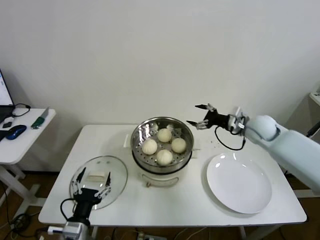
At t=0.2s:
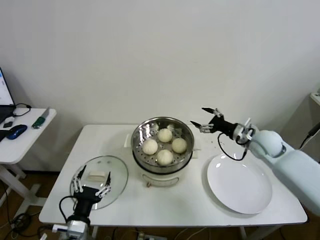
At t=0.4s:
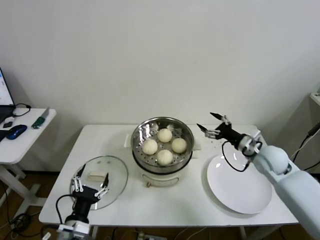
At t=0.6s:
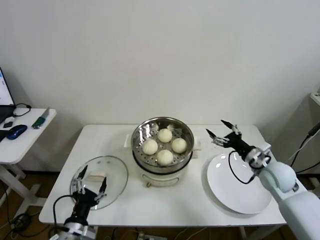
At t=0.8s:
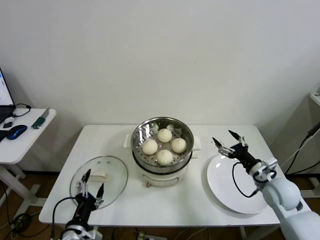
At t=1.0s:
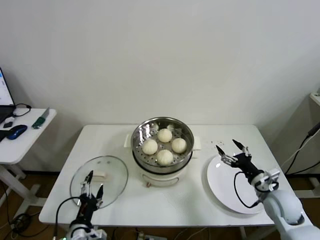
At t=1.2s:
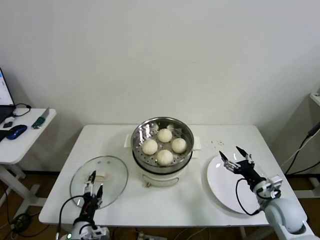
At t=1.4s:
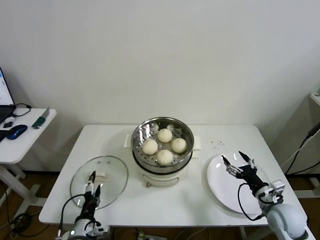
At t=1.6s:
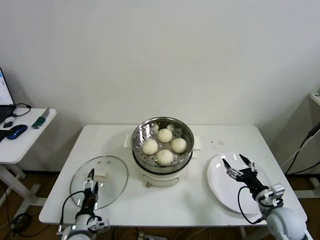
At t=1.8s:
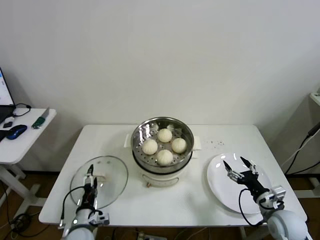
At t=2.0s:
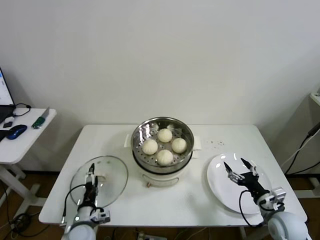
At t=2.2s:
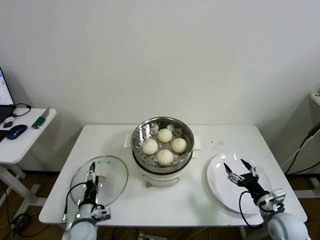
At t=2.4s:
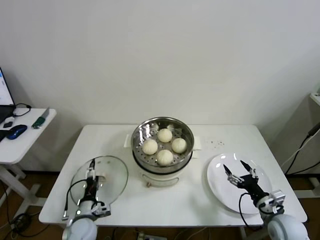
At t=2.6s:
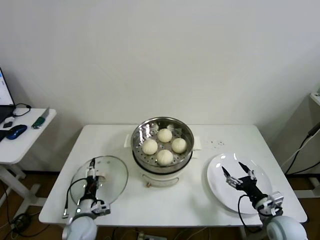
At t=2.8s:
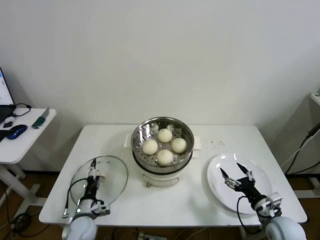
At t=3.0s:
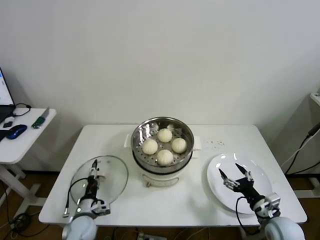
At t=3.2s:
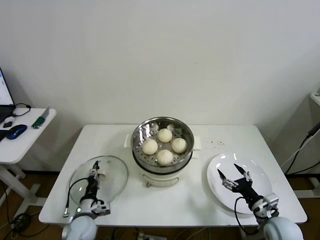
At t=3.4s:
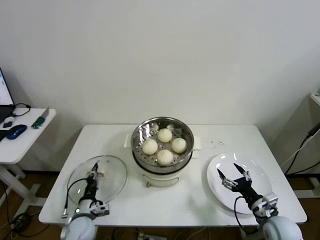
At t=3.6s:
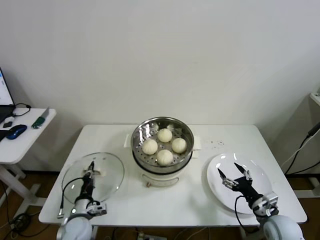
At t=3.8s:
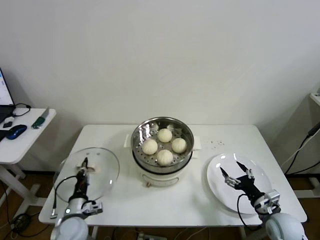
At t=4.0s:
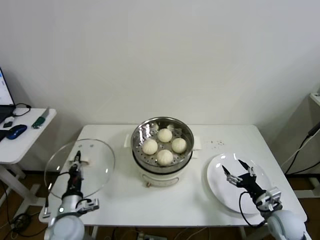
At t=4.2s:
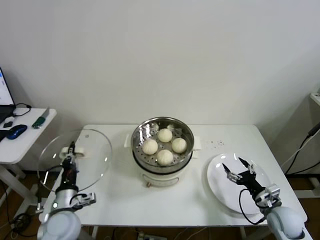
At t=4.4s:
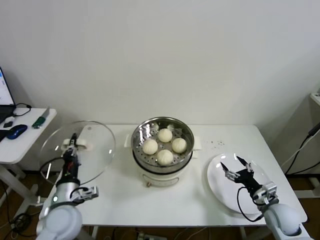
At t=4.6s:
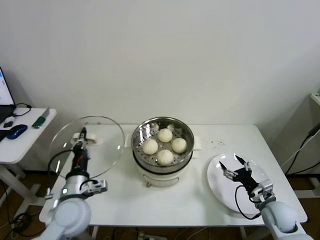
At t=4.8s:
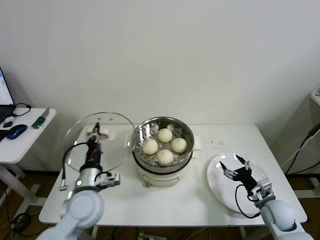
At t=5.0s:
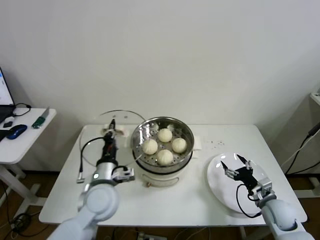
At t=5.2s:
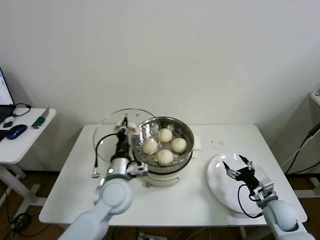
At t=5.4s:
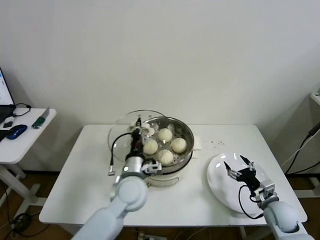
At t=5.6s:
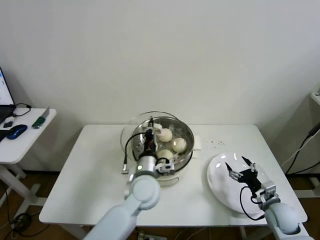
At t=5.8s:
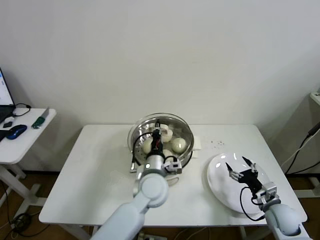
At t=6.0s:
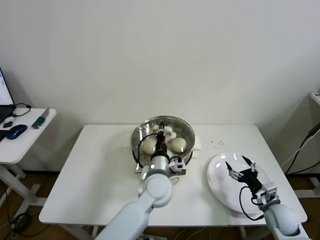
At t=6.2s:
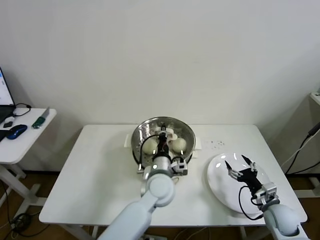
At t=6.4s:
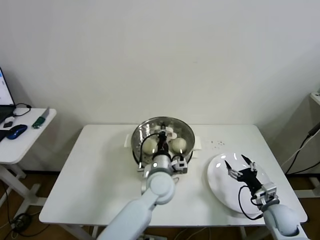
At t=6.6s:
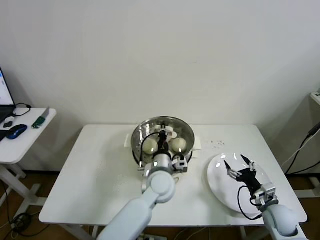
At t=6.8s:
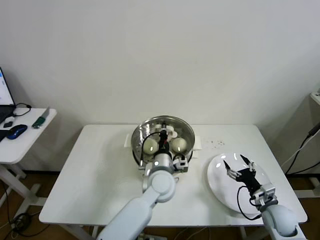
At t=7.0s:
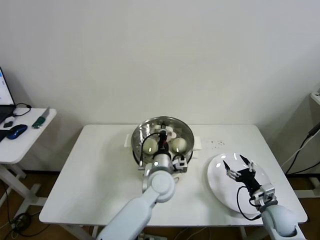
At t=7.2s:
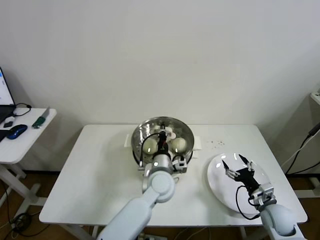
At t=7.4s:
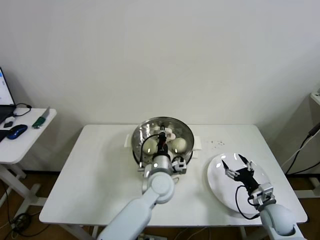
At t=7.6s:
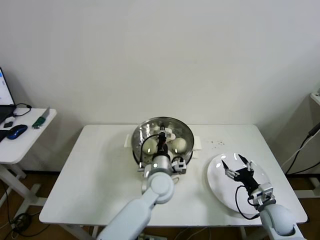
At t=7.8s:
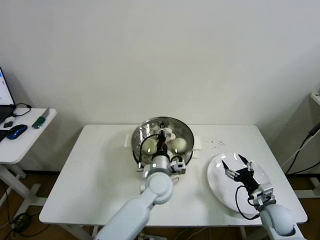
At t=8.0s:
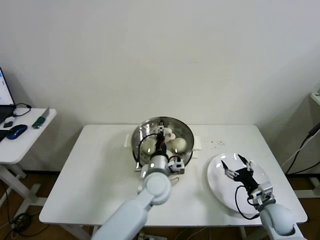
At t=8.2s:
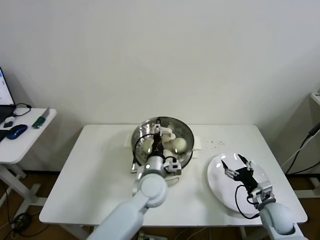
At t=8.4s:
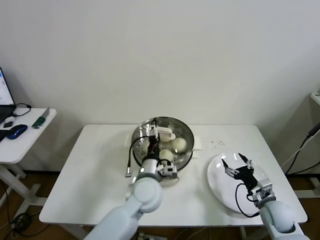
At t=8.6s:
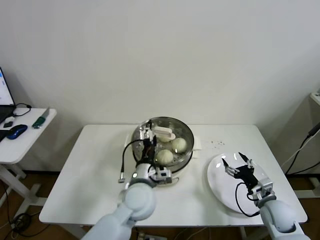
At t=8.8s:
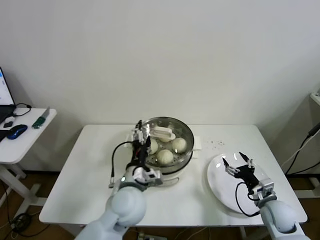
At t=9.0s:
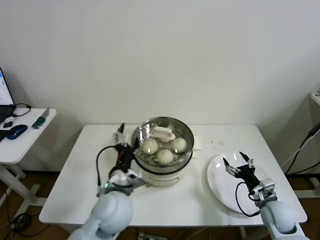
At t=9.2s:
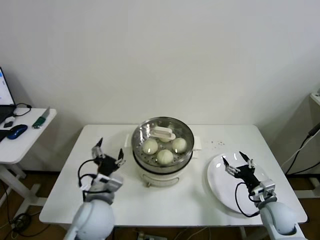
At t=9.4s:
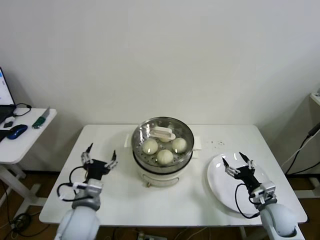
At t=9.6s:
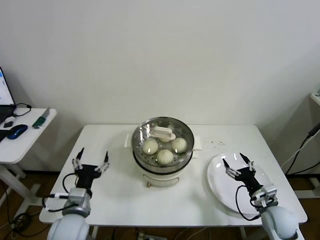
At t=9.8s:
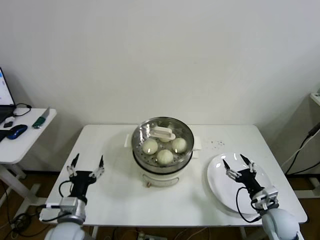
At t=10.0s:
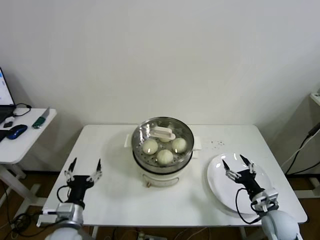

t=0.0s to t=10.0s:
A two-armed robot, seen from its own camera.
Step, t=0.0s to t=3.4s: Grasp the pot lid with left gripper.
Step, t=3.6s to t=7.8s: Place the pot lid on the steamer with left gripper.
t=0.0s to t=1.4s: The right gripper moves backward and downward, some 30 cm. The left gripper goes approximately 10 cm downward.
t=1.4s to t=2.8s: The left gripper travels forward by some 10 cm.
t=2.8s to t=4.2s: The left gripper heads upward, covering about 10 cm, and closes.
t=4.2s to t=5.8s: The left gripper is displaced to the right by approximately 25 cm.
t=5.8s to t=7.2s: The grippers move only a little.
t=7.2s to t=8.6s: The left gripper heads to the left and backward, covering roughly 10 cm, and opens its fingers.
t=8.6s to t=10.0s: The left gripper goes about 25 cm to the left and backward.

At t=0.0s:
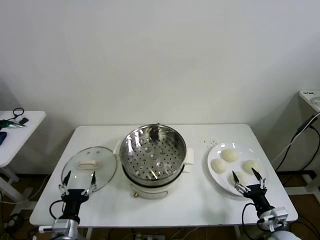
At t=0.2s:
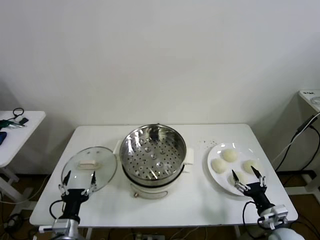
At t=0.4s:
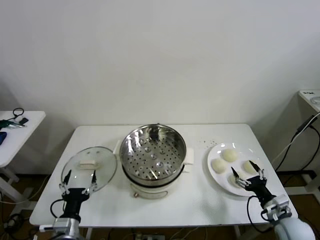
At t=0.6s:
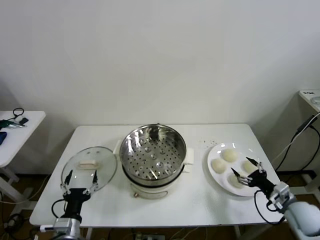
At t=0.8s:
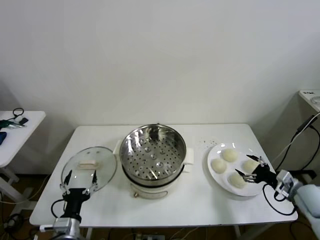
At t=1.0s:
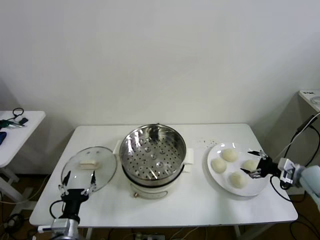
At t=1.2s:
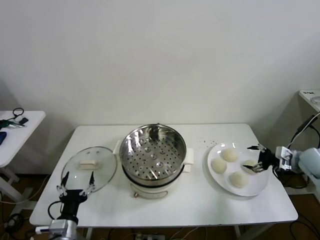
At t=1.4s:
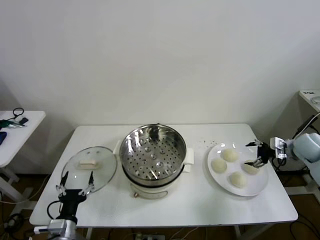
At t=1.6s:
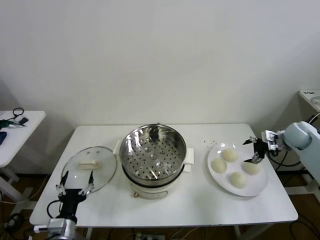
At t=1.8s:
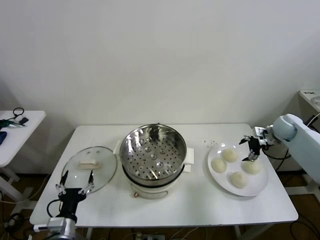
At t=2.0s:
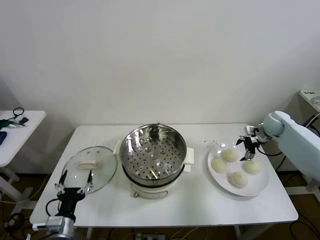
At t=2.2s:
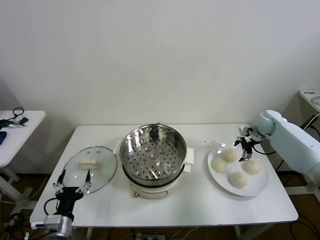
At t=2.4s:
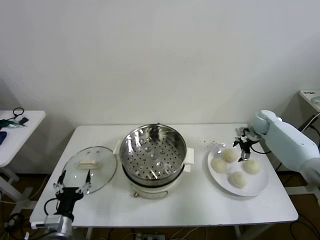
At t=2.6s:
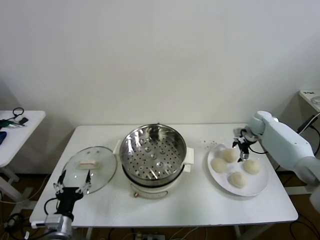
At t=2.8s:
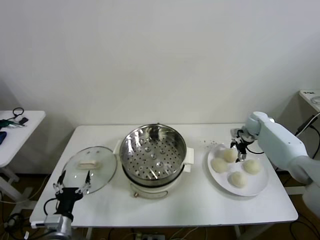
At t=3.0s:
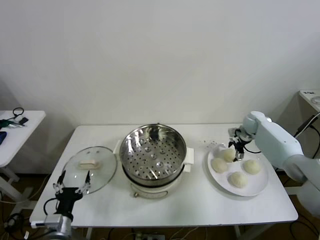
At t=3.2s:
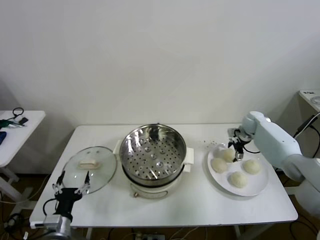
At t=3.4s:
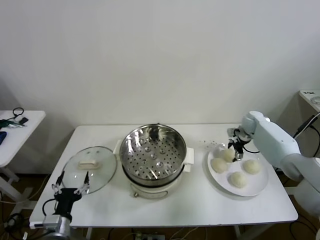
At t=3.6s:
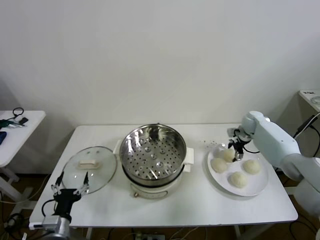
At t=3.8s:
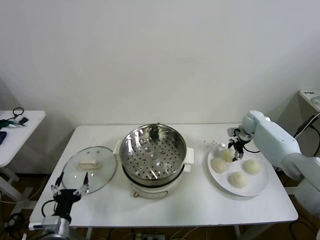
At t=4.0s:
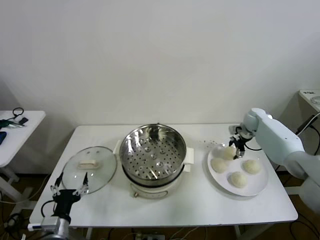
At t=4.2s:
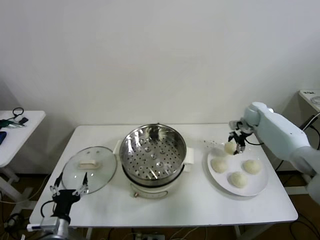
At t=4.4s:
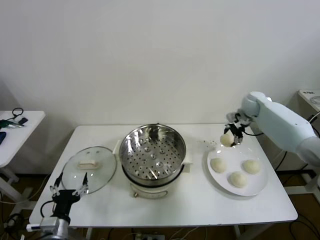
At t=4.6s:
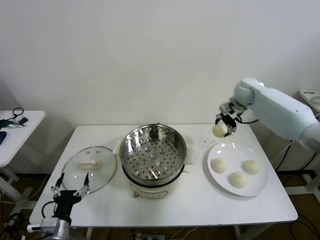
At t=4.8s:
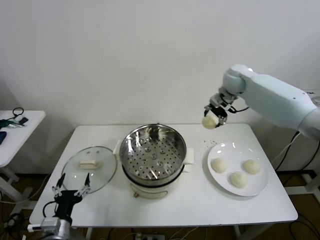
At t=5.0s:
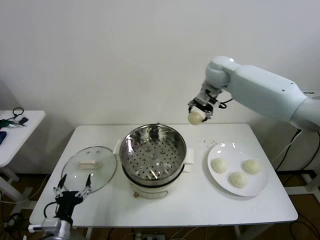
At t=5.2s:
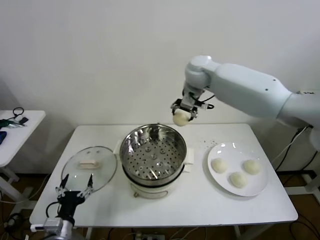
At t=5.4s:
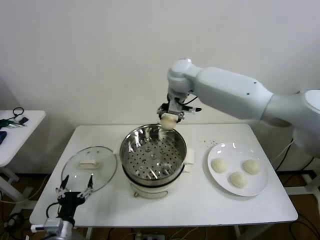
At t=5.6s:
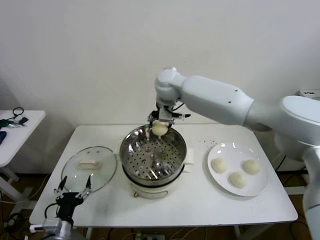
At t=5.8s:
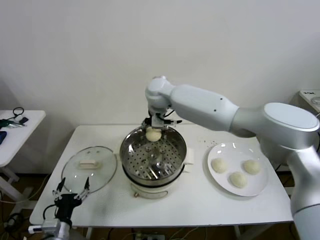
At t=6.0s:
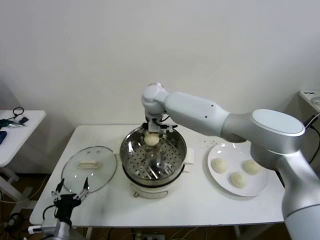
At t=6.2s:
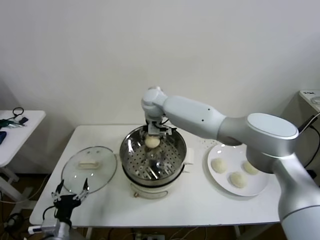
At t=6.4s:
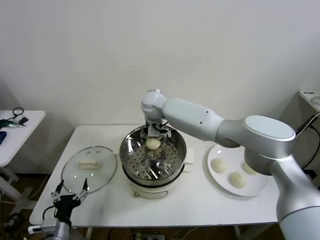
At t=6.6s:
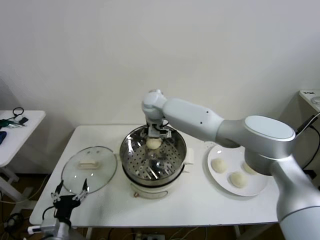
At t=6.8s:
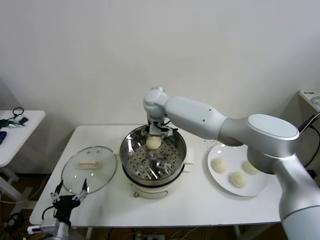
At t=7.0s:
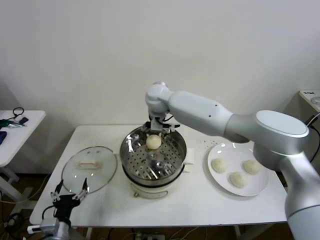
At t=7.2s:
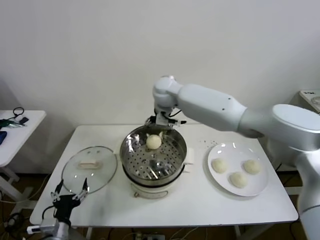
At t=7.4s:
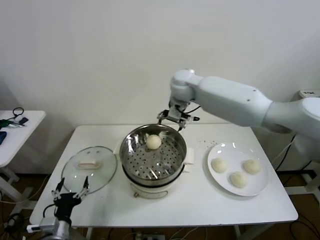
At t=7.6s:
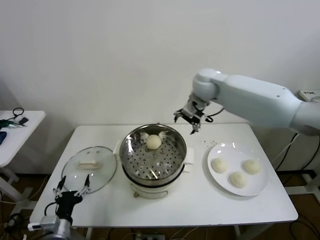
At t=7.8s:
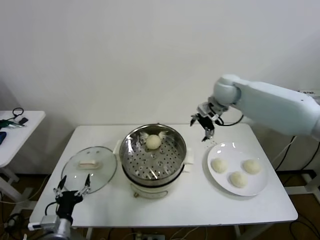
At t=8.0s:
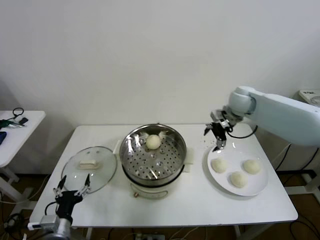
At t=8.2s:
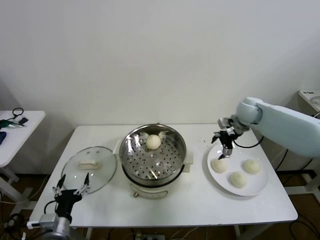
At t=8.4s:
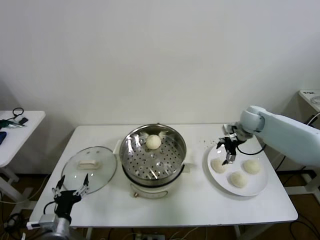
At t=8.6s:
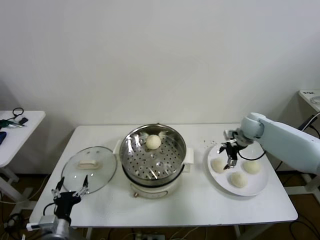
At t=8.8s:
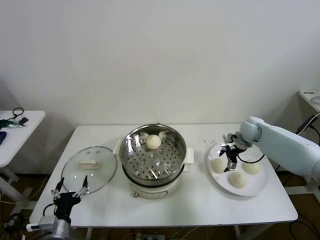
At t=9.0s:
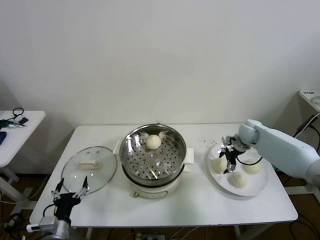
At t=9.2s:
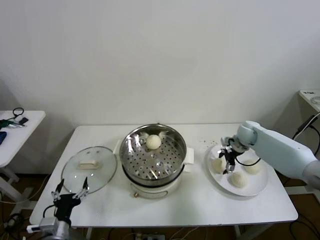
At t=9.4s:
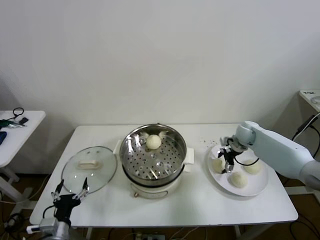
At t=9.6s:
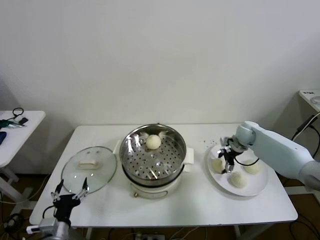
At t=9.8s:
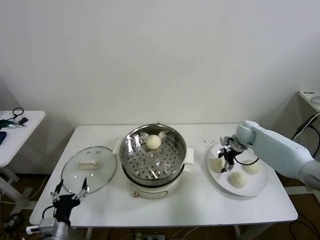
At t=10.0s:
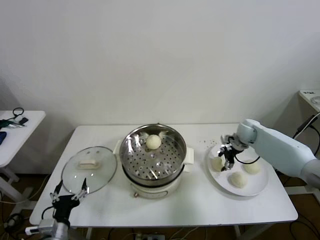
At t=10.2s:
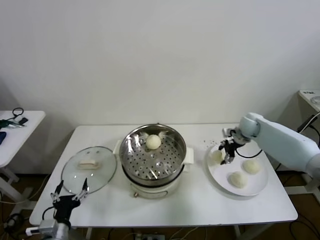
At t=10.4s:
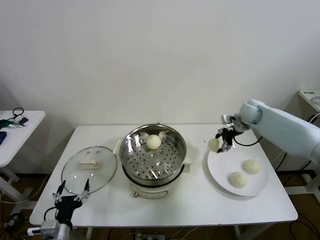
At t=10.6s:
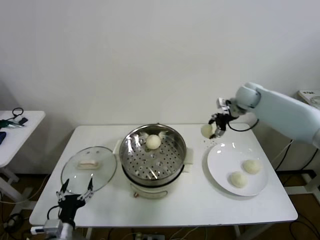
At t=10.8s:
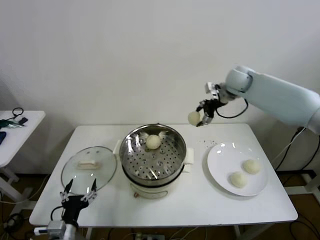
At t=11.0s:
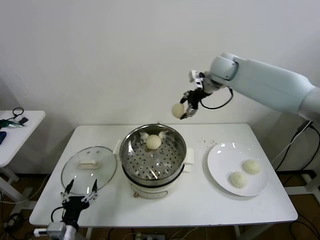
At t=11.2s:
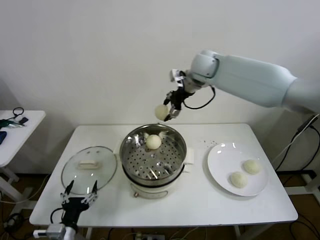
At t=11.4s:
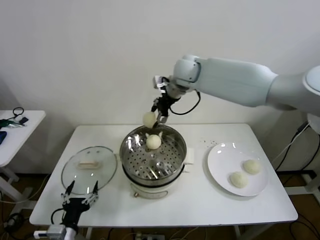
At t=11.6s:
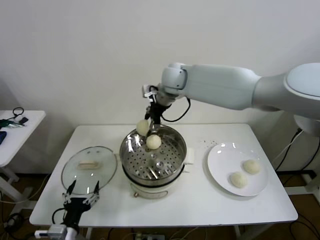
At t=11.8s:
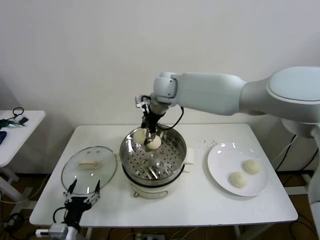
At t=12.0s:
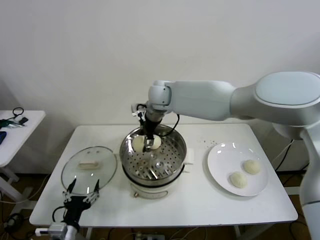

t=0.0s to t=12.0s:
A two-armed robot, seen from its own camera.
Step, t=0.0s to t=3.6s: Grasp the baozi in the plate with right gripper.
Step, t=3.8s to t=6.6s: Place the baozi on the steamer with right gripper.
Step, t=6.8s to t=9.6s: Grasp the baozi in the plate with right gripper.
t=1.6s to t=3.0s: The right gripper travels forward, to the left and downward by approximately 15 cm.
t=3.0s to t=4.4s: The right gripper shifts about 15 cm upward and to the left.
t=4.4s to t=6.0s: The right gripper travels to the left by some 35 cm.
t=6.0s to t=7.6s: The right gripper travels to the right by roughly 20 cm.
t=7.6s to t=9.0s: The right gripper moves downward and to the right, roughly 30 cm.
t=9.0s to t=10.4s: The right gripper is displaced upward by some 10 cm.
t=10.4s to t=12.0s: The right gripper goes approximately 35 cm to the left.
